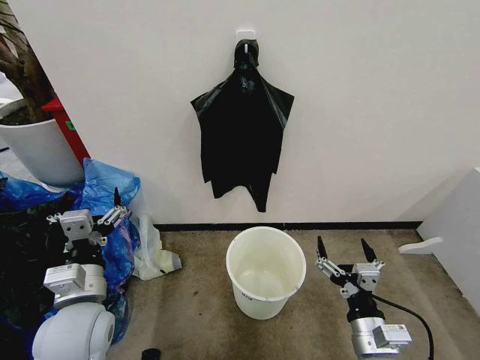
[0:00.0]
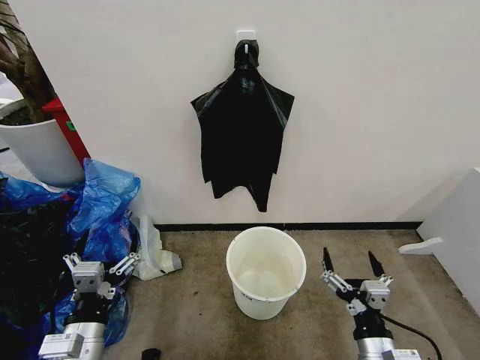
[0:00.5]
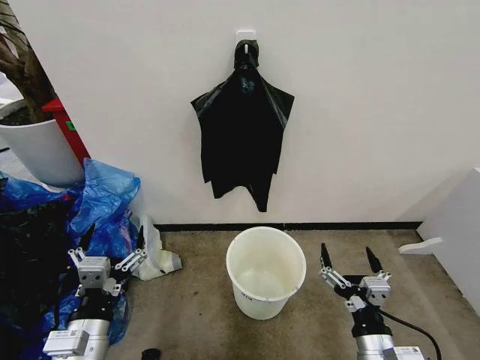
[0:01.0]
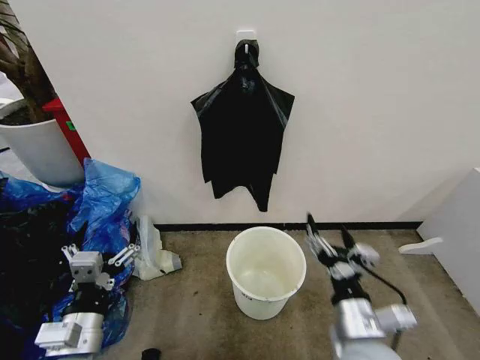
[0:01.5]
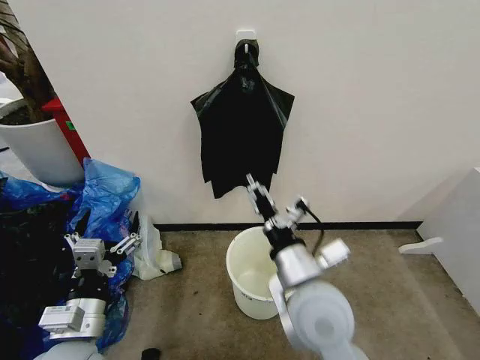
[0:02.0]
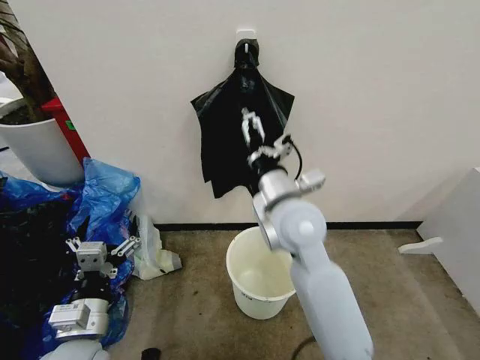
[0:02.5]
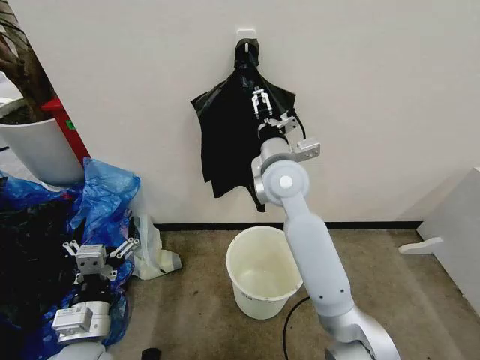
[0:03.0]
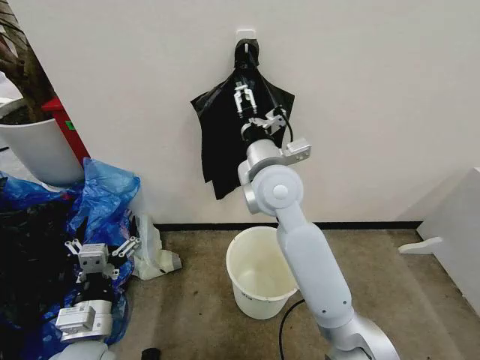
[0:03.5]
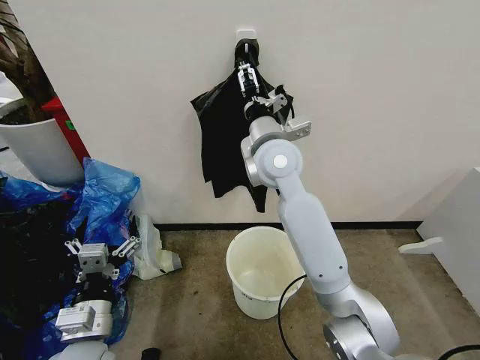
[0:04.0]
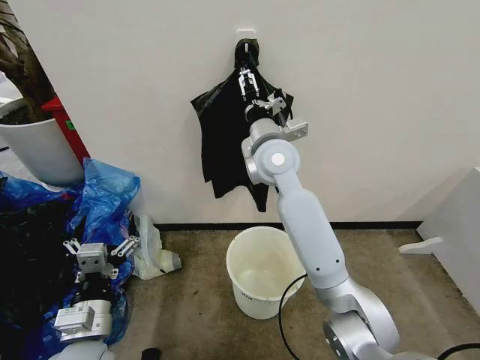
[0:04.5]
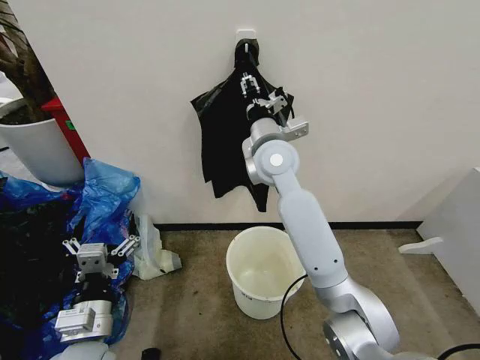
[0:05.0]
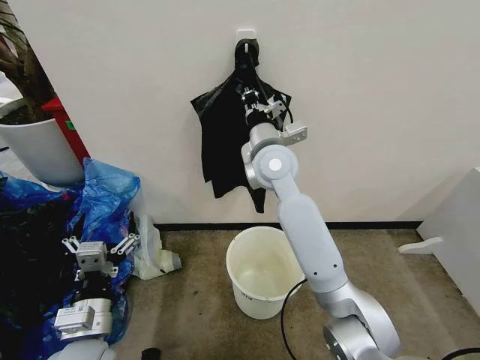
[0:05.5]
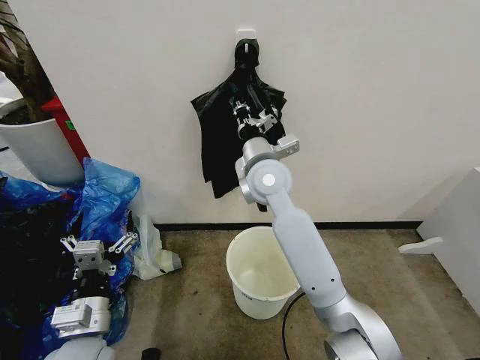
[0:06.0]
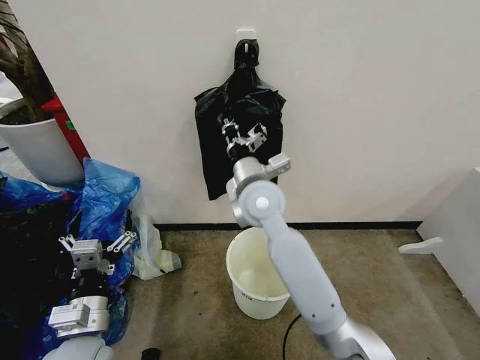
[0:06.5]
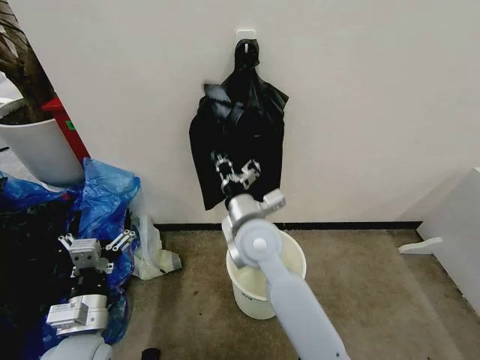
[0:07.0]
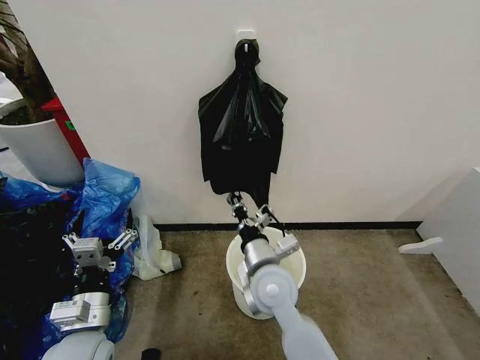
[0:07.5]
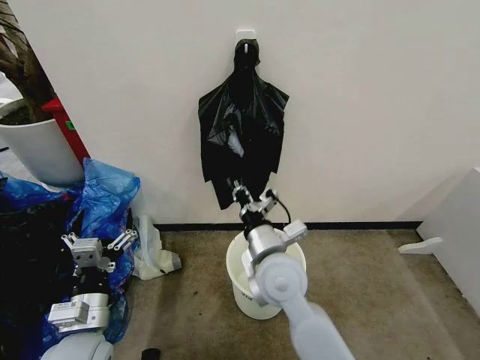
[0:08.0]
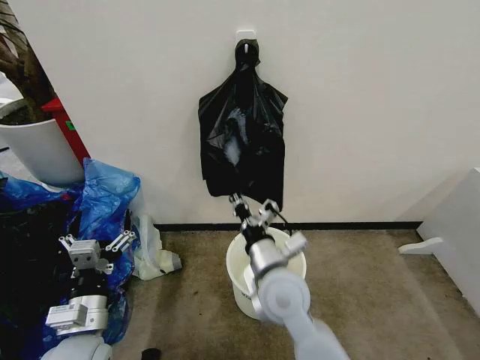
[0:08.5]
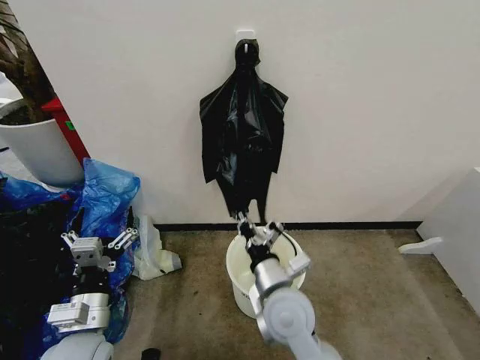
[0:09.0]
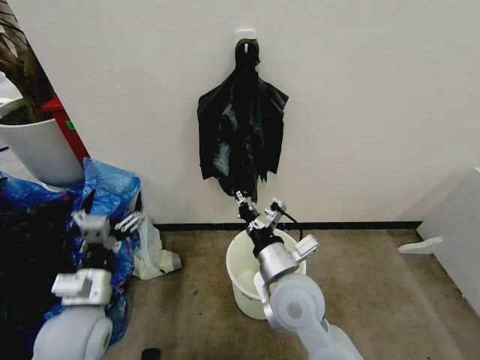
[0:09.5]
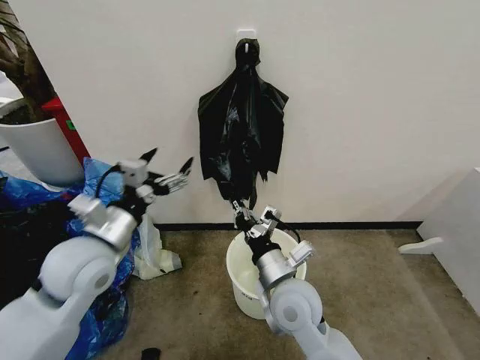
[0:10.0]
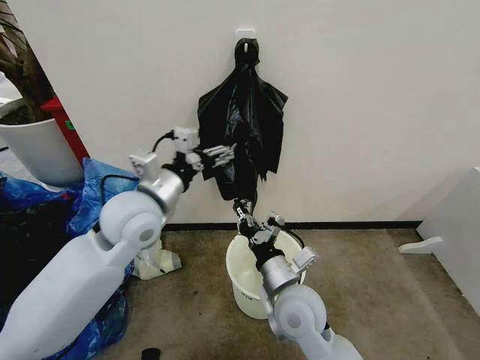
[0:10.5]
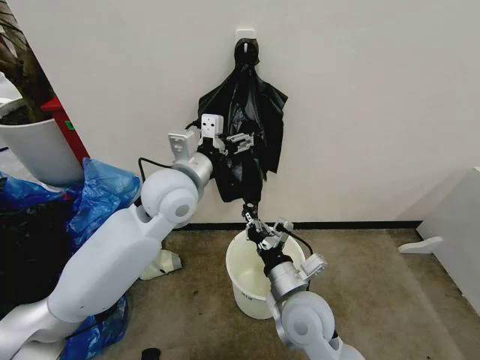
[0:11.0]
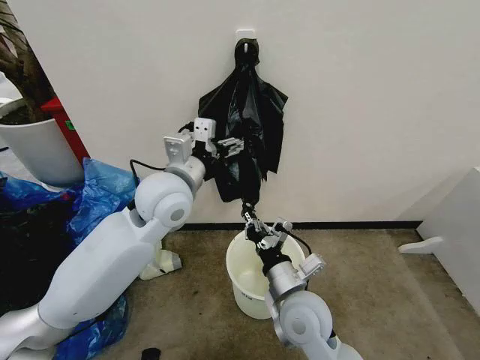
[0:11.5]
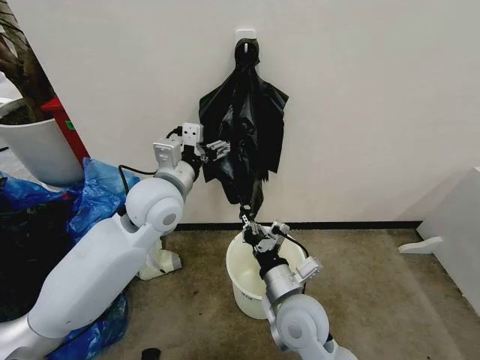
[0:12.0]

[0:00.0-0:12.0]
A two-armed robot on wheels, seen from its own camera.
Task of the whole recording: Place the garbage bag over the trash bin.
0:02.0 to 0:04.0: The right gripper shifts about 25 cm forward and upward.
0:04.0 to 0:06.0: The right gripper closes.
0:06.0 to 0:08.0: The right gripper is displaced backward and downward by about 20 cm.
0:08.0 to 0:10.0: The right gripper shifts by roughly 5 cm; the left gripper moves upward and forward, about 15 cm.
0:10.0 to 0:12.0: The left gripper is displaced to the right and forward by roughly 15 cm.

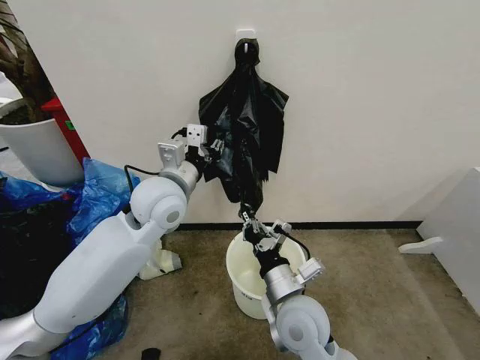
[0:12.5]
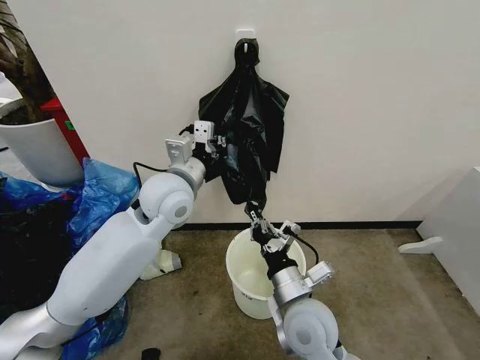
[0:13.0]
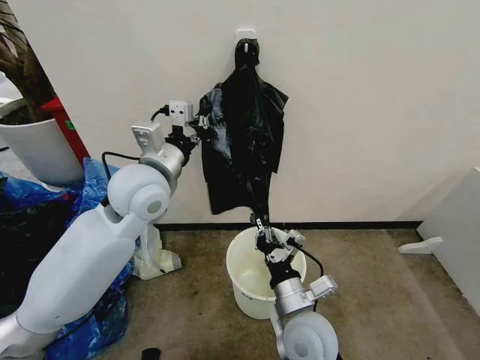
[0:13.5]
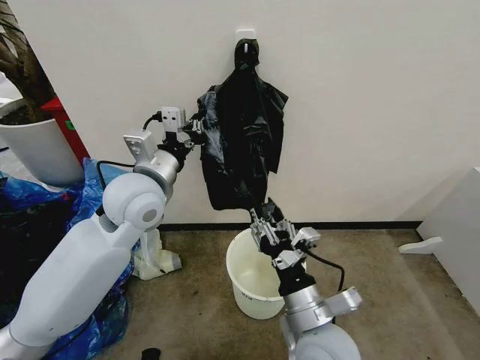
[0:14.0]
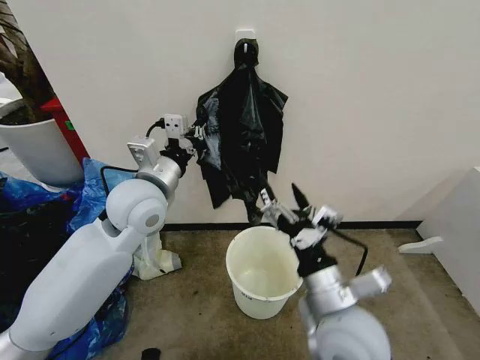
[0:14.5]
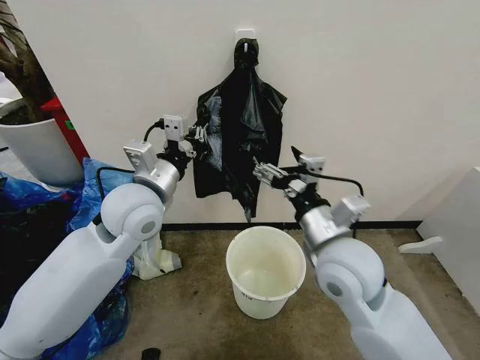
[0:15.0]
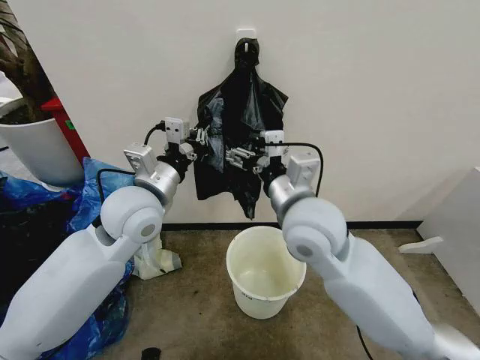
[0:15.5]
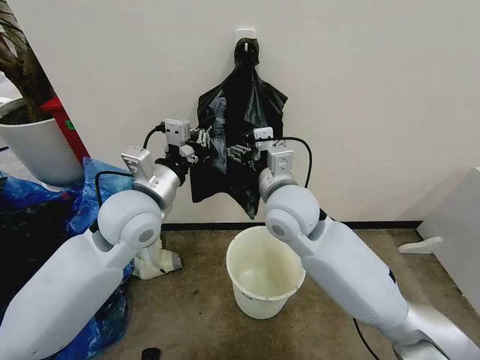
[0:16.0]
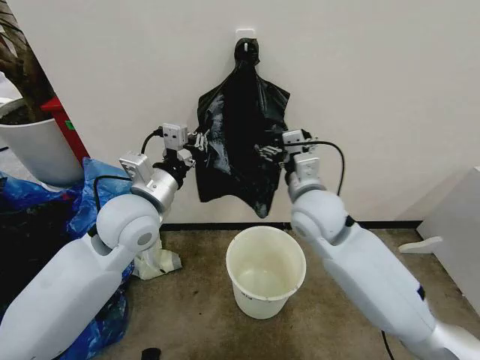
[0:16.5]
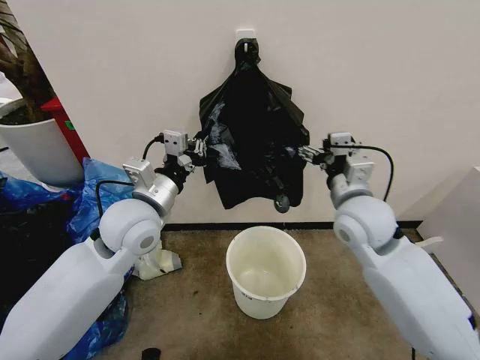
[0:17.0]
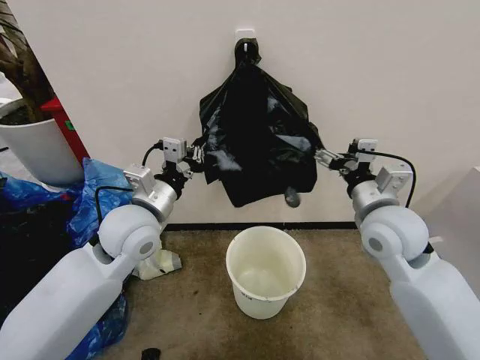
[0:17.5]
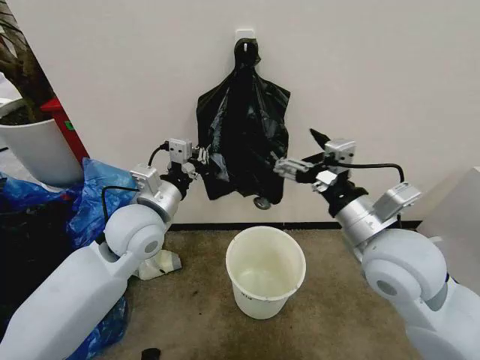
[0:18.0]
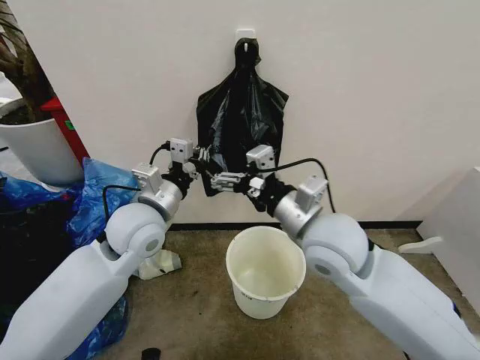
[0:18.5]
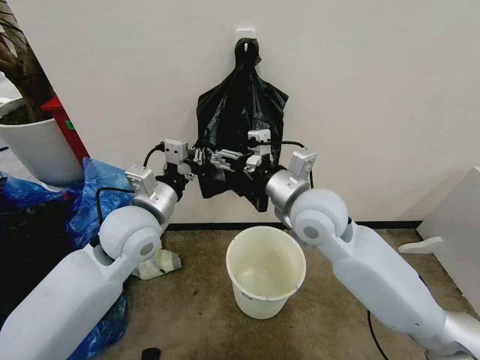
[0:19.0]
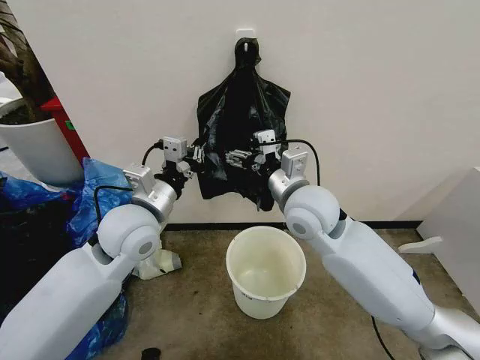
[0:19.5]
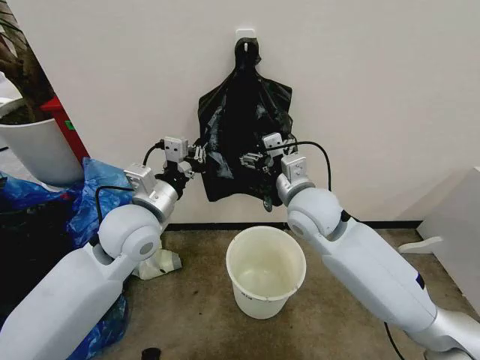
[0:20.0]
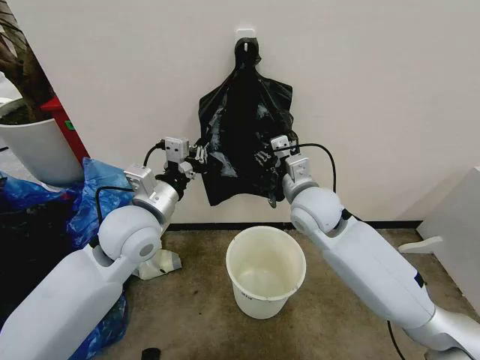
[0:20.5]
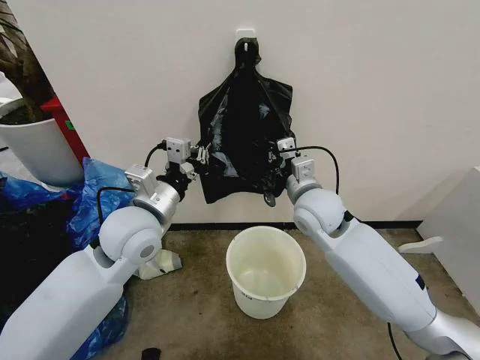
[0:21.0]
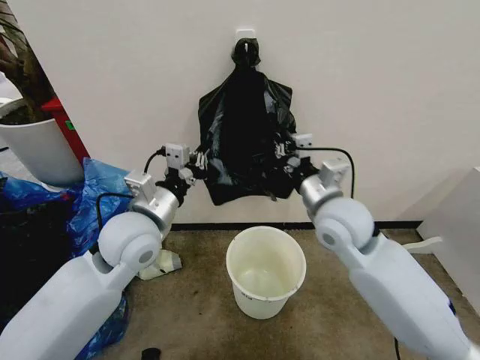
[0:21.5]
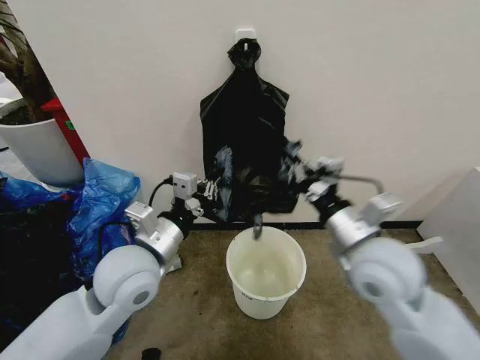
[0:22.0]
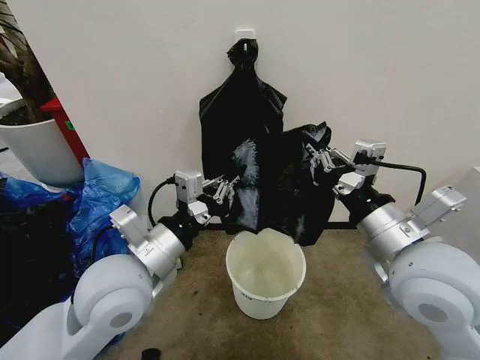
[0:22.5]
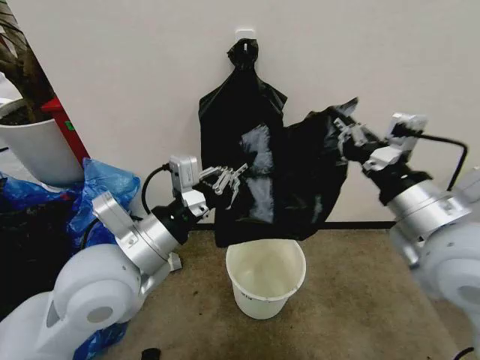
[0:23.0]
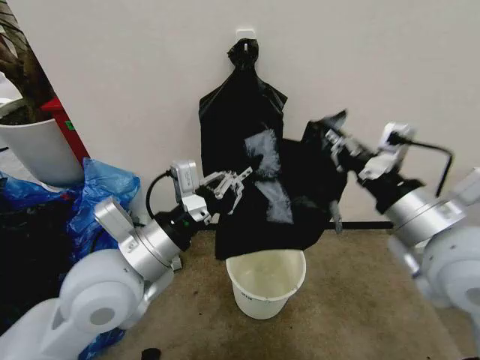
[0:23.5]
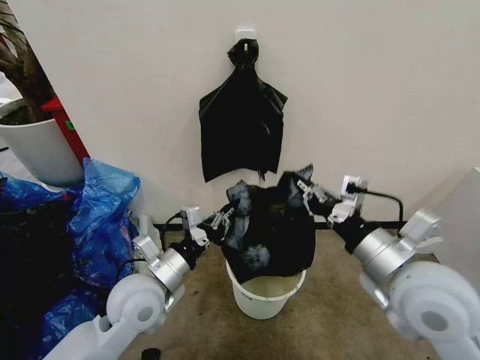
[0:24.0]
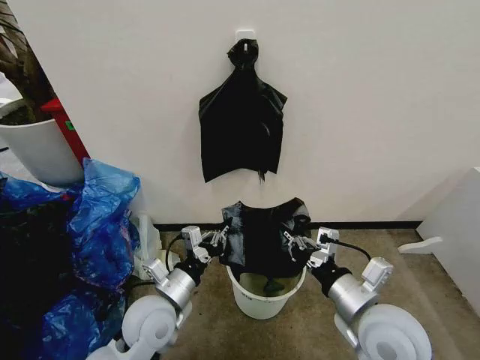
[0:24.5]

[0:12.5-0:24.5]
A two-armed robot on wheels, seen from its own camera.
Task of the whole recording: Place the garbage bag over the trash bin.
0:12.5 to 0:14.5: The left gripper closes up, while the right gripper goes roughly 10 cm upward, and opens.
0:14.5 to 0:16.5: The right gripper is displaced forward by roughly 20 cm.
0:16.5 to 0:18.5: The right gripper shifts some 10 cm backward, and goes to the right and returns, about 10 cm each way.
0:18.5 to 0:20.5: The right gripper moves forward, approximately 10 cm, and closes up.
0:20.5 to 0:22.5: The left gripper travels backward by approximately 10 cm; the right gripper is displaced backward and to the right by about 20 cm, and closes.
0:22.5 to 0:24.5: The grippers both shift downward by some 15 cm.

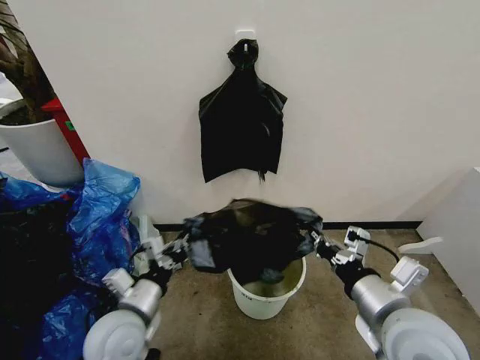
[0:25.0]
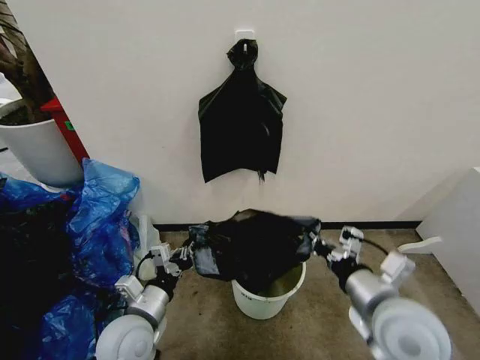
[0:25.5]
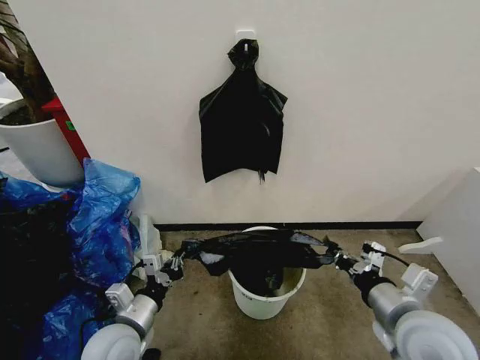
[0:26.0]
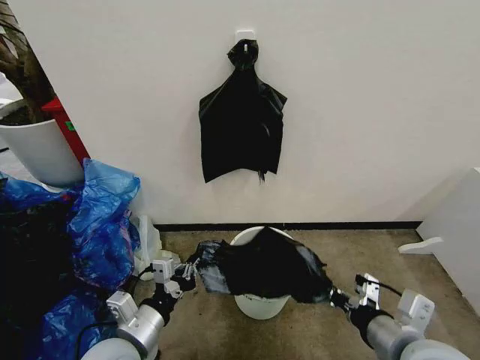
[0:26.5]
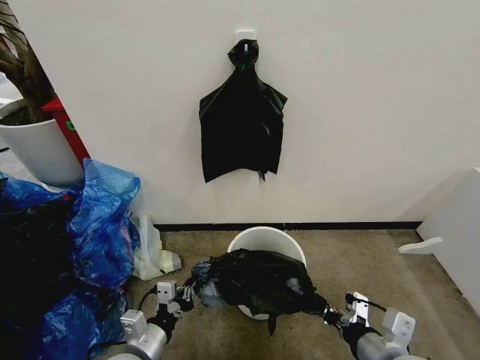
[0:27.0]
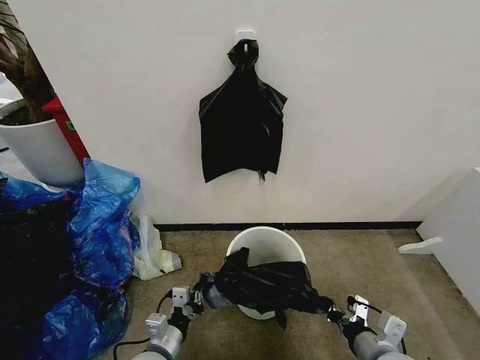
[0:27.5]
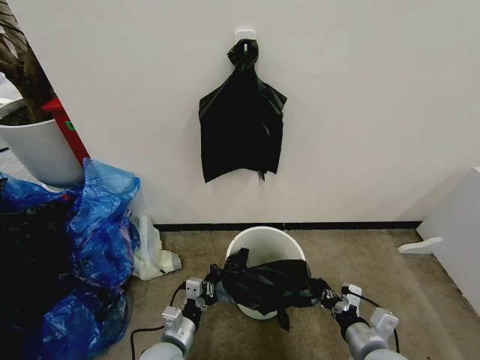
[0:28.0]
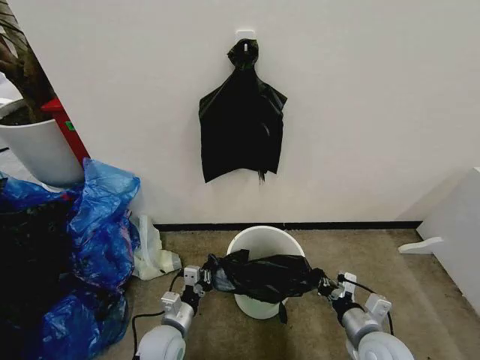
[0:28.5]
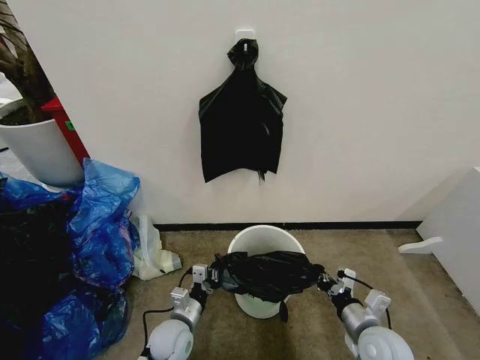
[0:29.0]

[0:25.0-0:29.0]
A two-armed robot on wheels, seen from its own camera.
Task of the whole recording: Place the garbage bag over the trash bin.
0:25.0 to 0:27.0: The left gripper swings up and down, some 5 cm each way, with 2 reversals, while the right gripper heads downward, covering roughly 5 cm.
0:27.0 to 0:29.0: The left gripper is displaced downward, forward and to the right by roughly 15 cm, while the right gripper shifts about 15 cm downward and forward.
